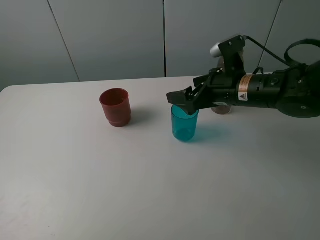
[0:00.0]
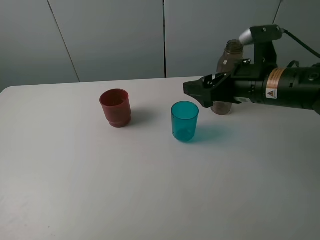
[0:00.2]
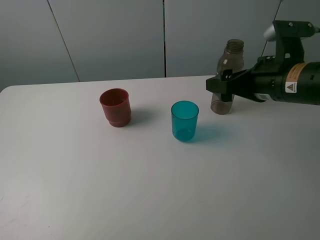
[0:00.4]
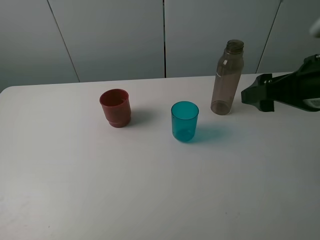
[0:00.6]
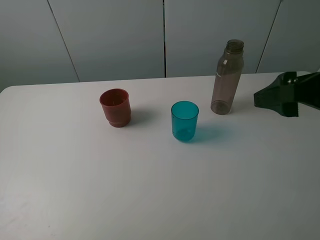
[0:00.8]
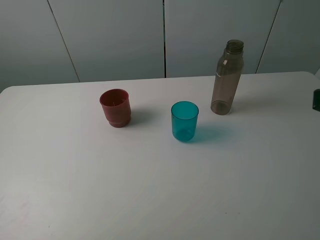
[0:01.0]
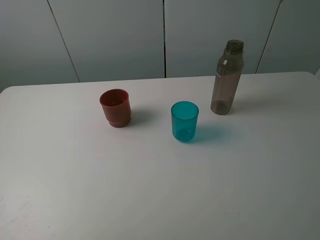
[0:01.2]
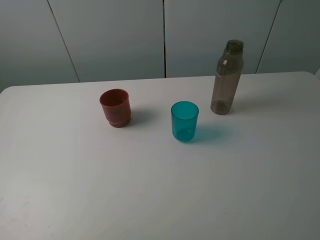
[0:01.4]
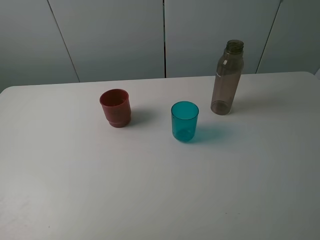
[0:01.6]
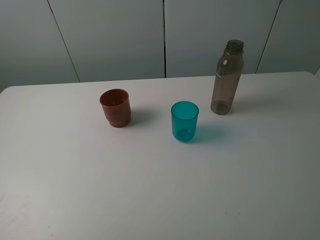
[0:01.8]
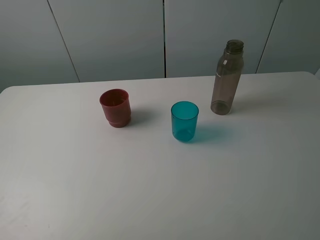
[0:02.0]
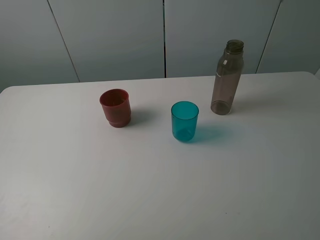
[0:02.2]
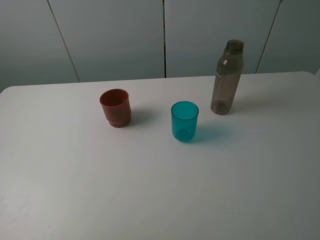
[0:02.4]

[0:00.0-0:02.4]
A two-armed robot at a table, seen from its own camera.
Task of the whole recording: pick up the bottle and pour water into the cup, then pick up the cup containing water and pour it into another cup.
0:00.0 to 0:01.2: The right gripper shifts about 30 cm backward, upward and to the right.
